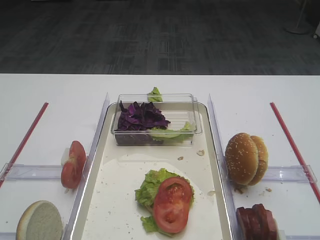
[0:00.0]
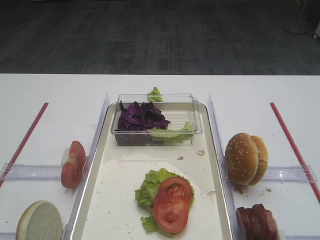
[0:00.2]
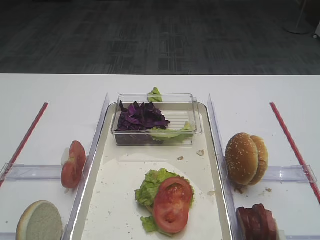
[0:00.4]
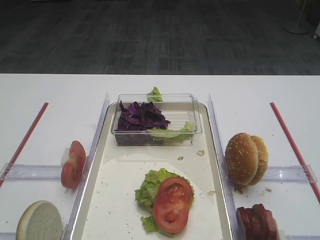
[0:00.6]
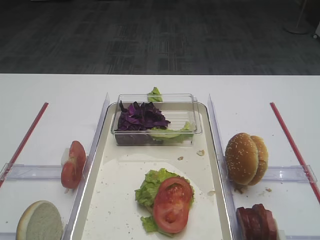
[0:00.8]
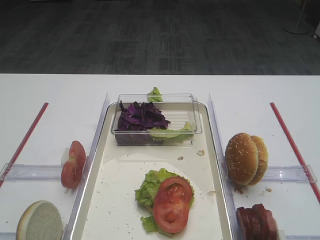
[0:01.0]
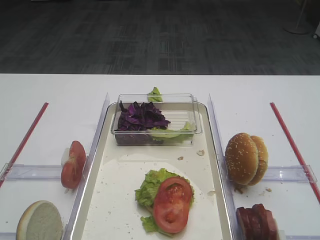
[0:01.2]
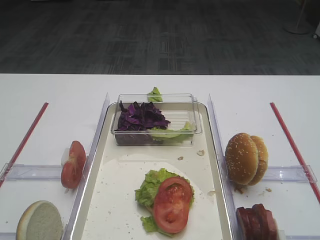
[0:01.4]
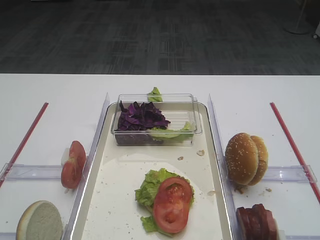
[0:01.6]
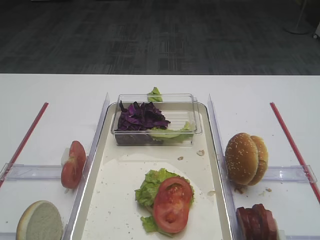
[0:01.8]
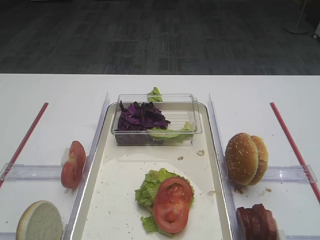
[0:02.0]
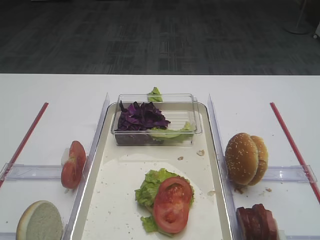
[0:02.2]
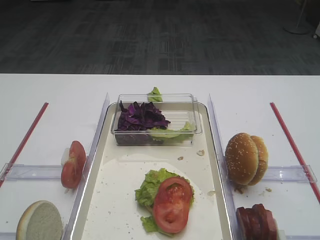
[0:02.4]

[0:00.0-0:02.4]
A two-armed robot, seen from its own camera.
0:00.0 to 0:02.4: Both grippers stay put.

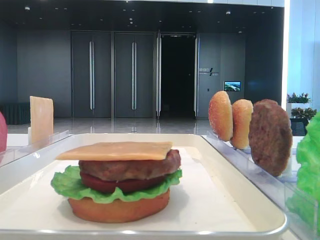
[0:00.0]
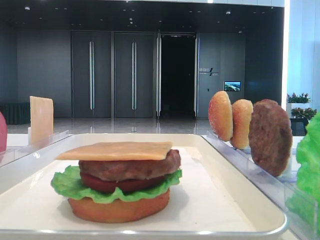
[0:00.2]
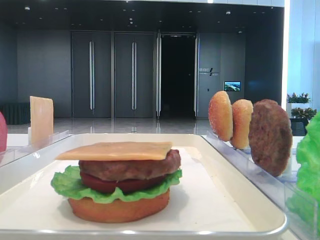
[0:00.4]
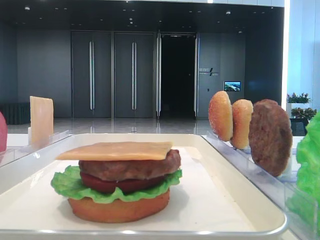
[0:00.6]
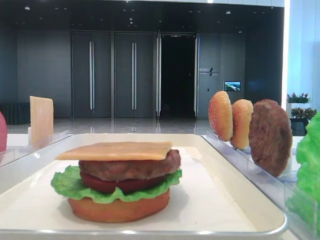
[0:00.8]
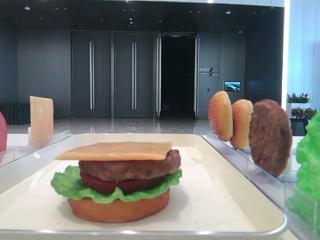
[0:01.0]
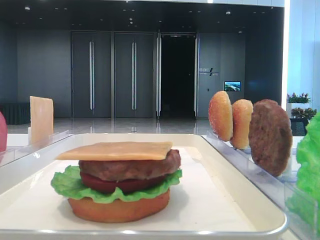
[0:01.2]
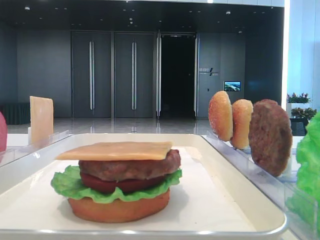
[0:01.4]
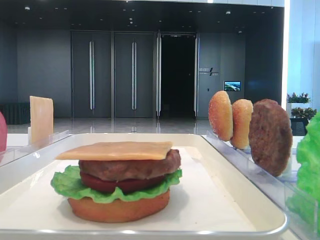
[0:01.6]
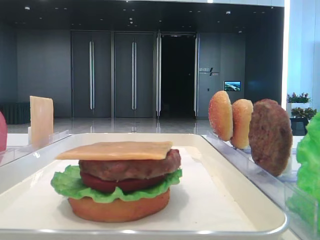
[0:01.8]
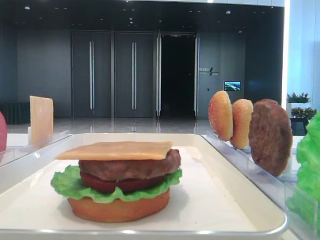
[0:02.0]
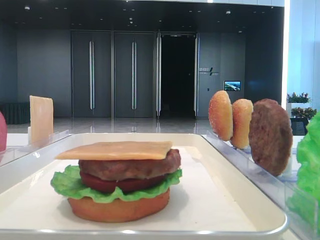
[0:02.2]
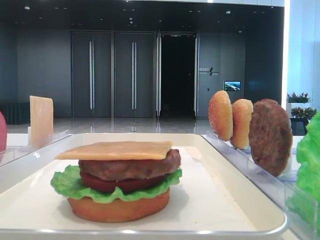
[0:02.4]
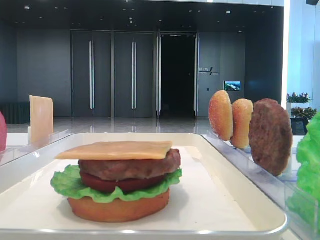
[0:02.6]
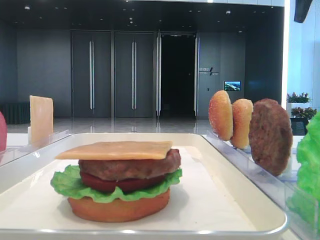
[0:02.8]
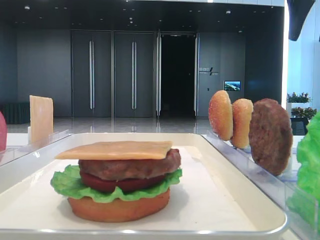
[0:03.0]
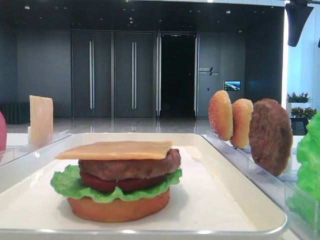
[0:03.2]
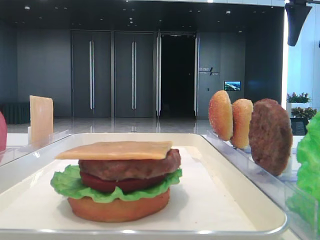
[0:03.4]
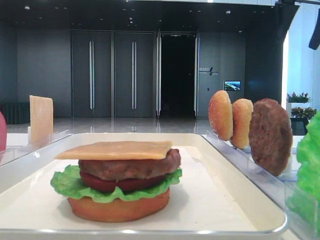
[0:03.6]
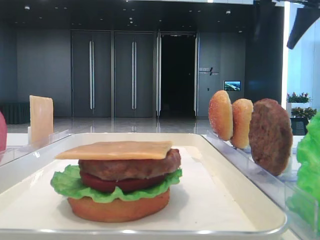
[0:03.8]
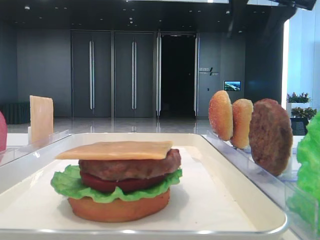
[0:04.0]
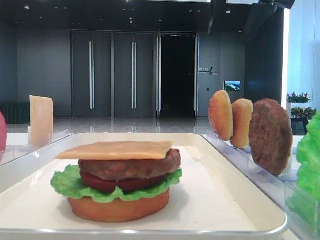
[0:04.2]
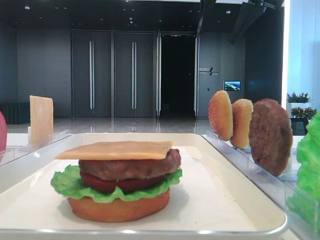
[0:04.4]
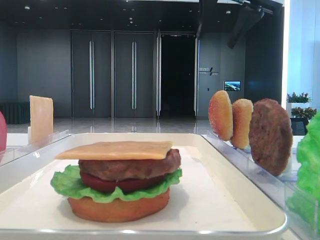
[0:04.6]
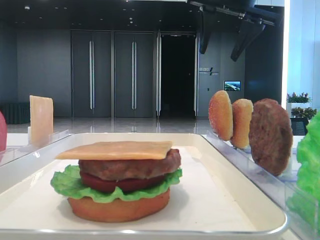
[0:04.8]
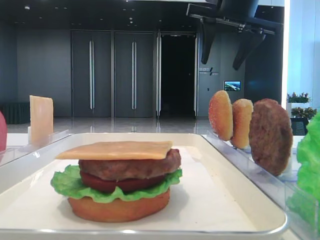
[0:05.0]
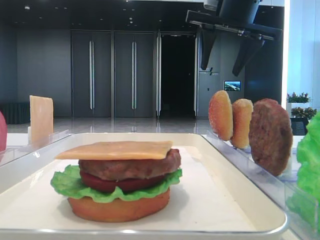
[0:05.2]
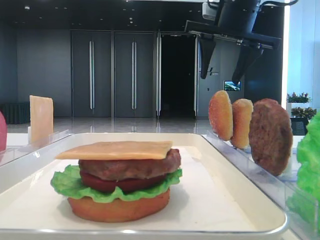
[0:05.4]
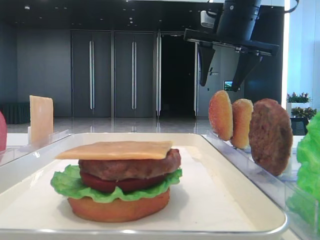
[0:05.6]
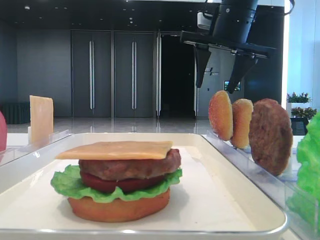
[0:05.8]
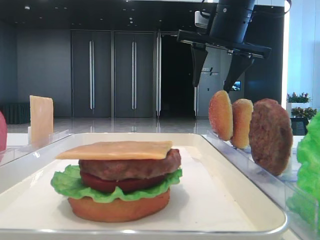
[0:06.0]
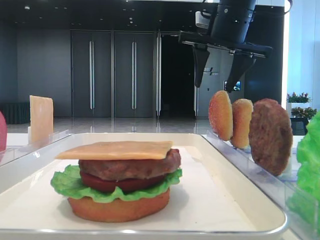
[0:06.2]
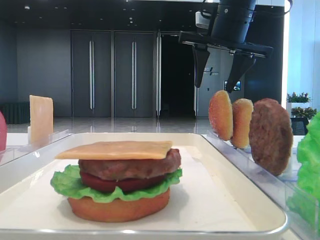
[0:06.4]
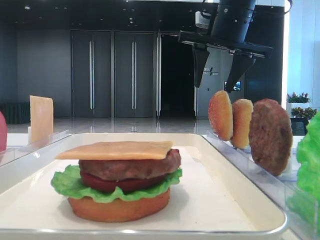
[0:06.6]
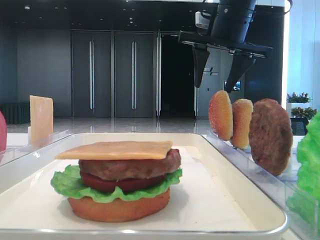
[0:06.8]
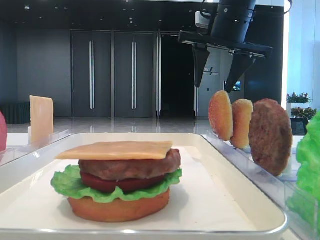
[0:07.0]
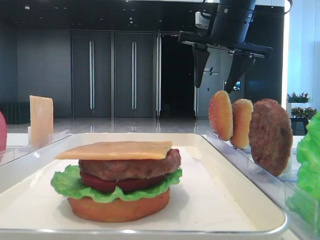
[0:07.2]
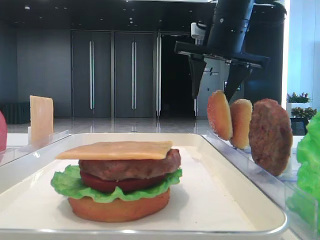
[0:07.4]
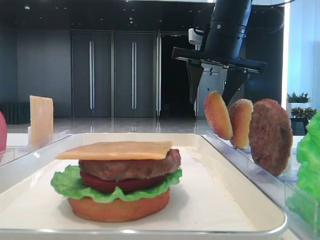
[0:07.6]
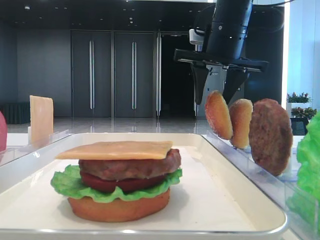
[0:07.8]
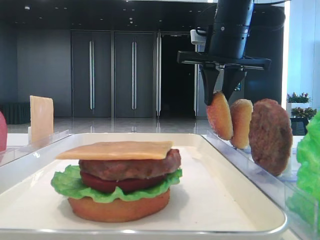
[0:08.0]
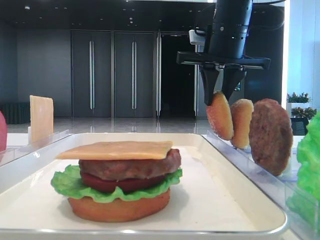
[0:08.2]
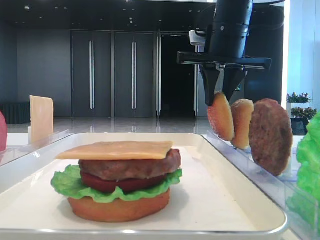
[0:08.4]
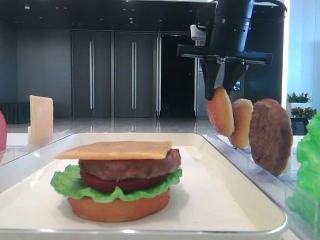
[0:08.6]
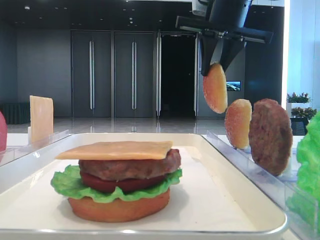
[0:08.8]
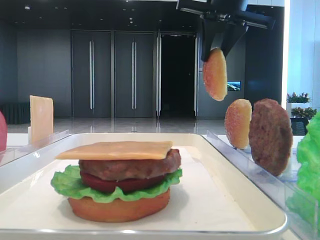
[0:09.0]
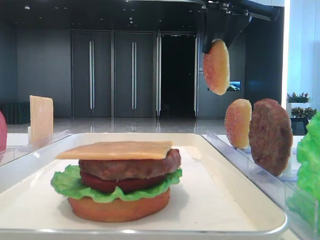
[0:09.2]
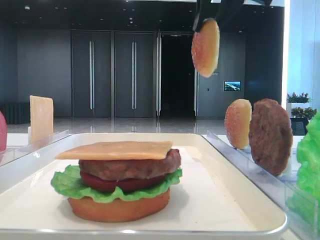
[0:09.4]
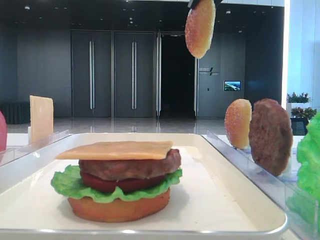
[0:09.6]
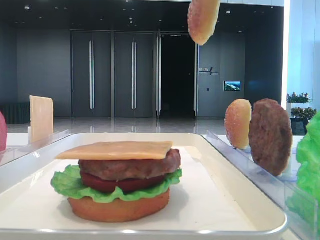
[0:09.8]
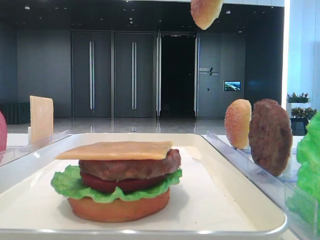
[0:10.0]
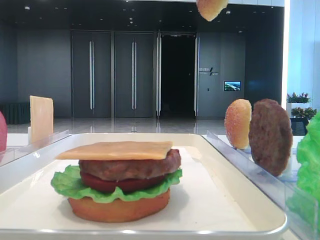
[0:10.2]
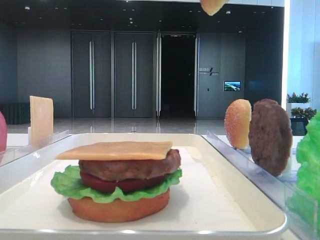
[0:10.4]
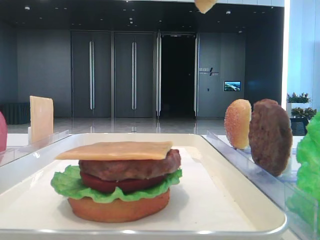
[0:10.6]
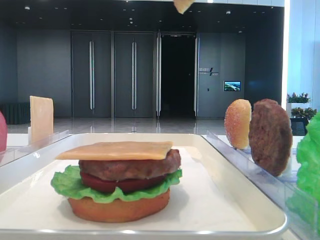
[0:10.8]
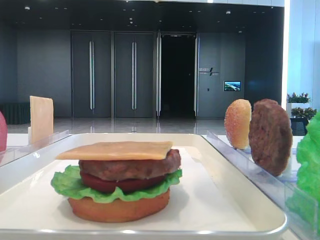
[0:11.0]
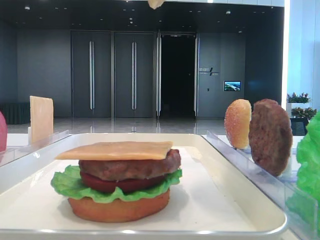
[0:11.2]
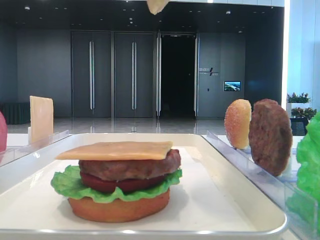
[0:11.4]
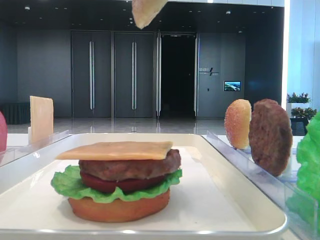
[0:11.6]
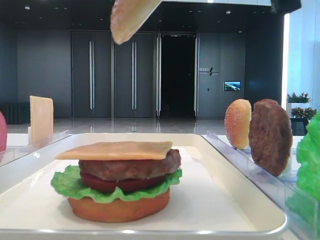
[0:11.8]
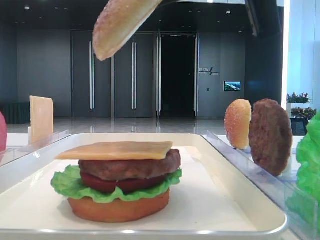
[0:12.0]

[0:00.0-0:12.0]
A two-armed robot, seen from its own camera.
Step, 0:00.0 to 0:08.2: Pick up the top bread slice with the right hand.
0:01.6 to 0:03.0: The right gripper moves forward, some 30 cm.
0:03.0 to 0:04.4: The right gripper heads to the left, covering approximately 15 cm.
0:04.4 to 0:06.0: The right gripper shifts some 10 cm downward.
0:06.0 to 0:07.6: The grippers move only a little.
0:07.6 to 0:09.0: The right gripper moves upward, roughly 5 cm, and closes its fingers.
0:09.0 to 0:10.4: The right gripper travels backward and upward by some 20 cm.
0:10.4 to 0:12.0: The right gripper is displaced downward by some 10 cm.

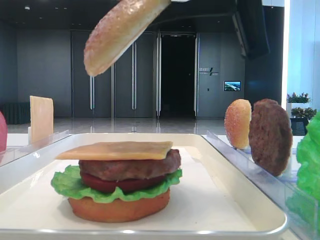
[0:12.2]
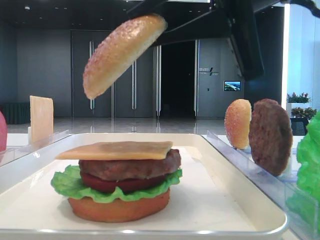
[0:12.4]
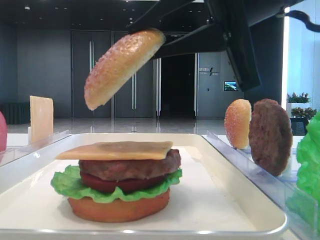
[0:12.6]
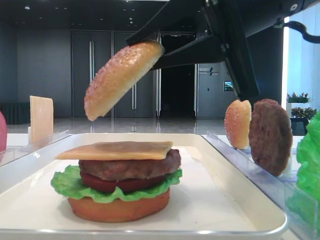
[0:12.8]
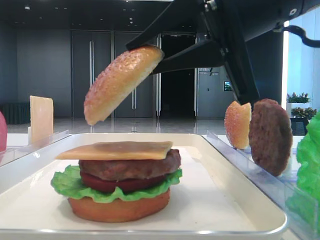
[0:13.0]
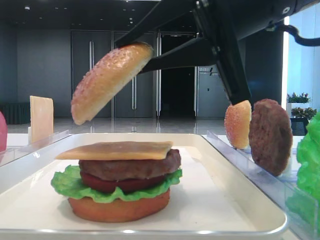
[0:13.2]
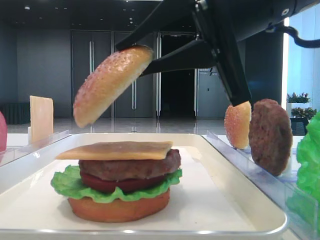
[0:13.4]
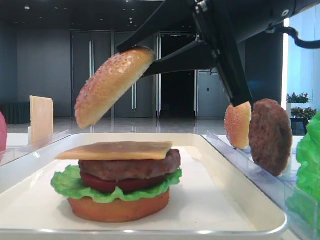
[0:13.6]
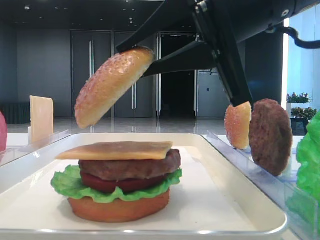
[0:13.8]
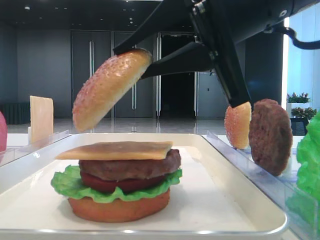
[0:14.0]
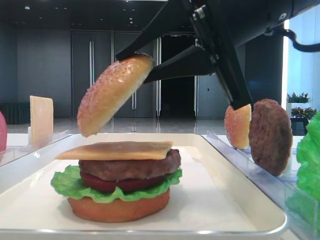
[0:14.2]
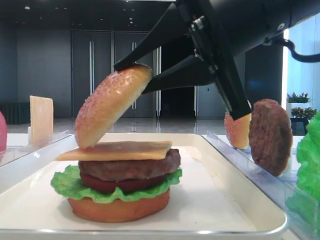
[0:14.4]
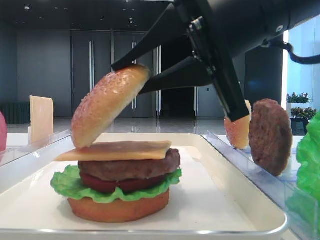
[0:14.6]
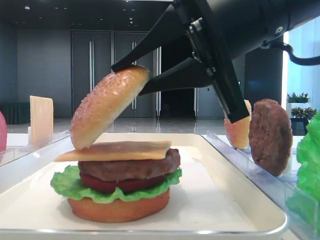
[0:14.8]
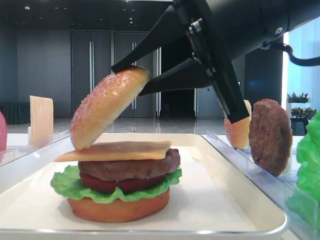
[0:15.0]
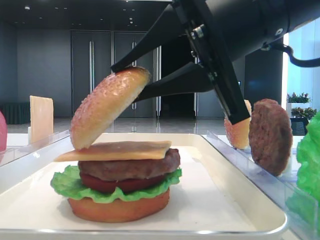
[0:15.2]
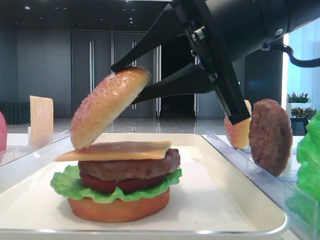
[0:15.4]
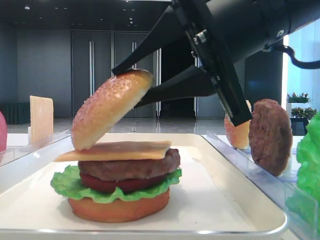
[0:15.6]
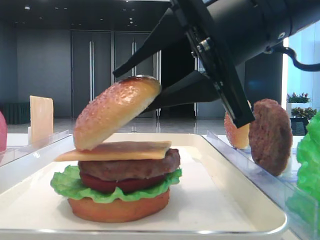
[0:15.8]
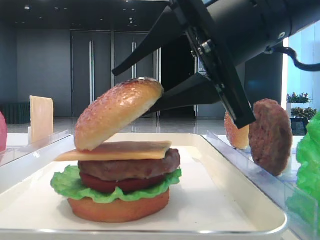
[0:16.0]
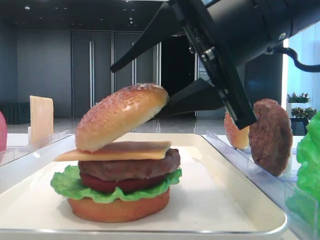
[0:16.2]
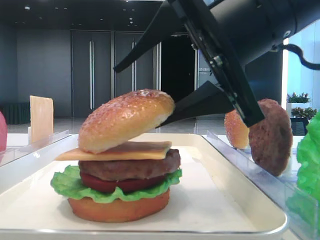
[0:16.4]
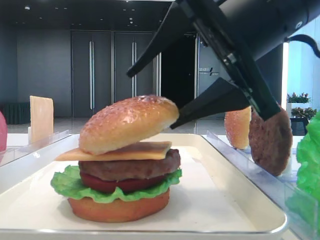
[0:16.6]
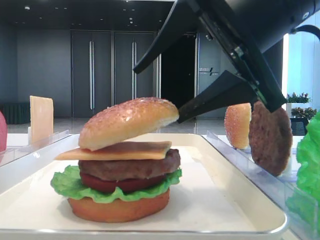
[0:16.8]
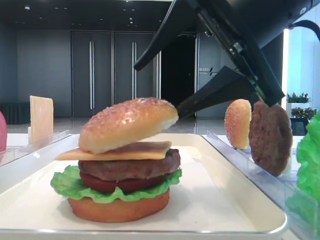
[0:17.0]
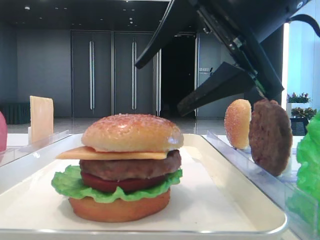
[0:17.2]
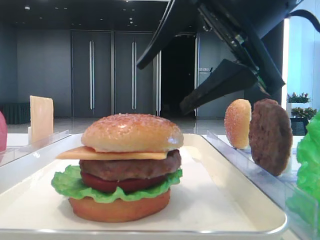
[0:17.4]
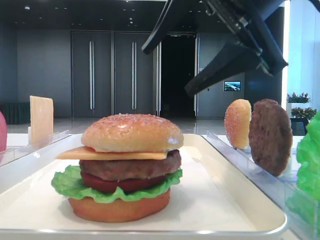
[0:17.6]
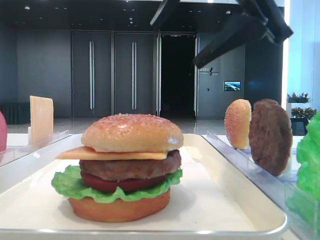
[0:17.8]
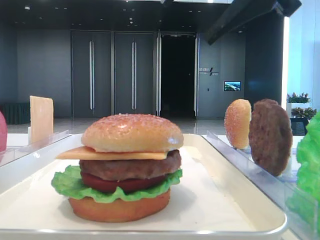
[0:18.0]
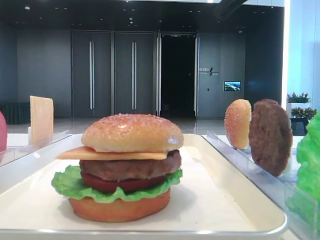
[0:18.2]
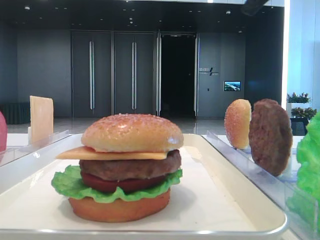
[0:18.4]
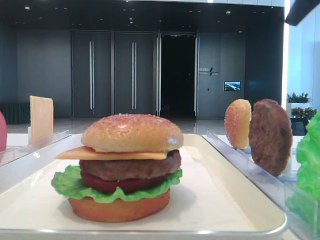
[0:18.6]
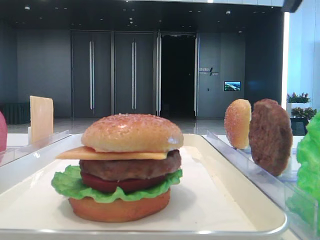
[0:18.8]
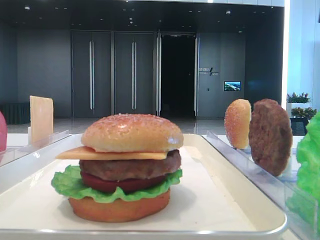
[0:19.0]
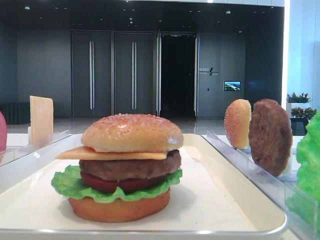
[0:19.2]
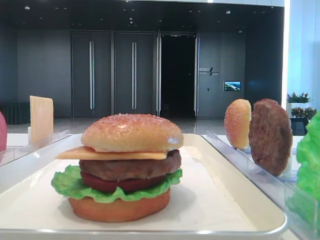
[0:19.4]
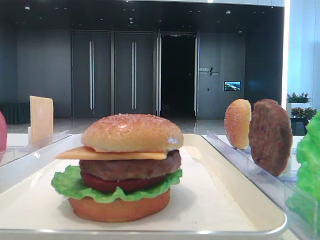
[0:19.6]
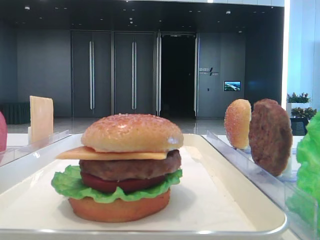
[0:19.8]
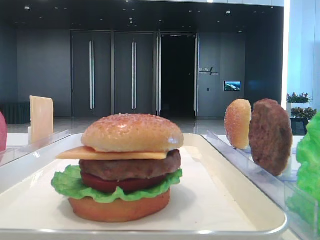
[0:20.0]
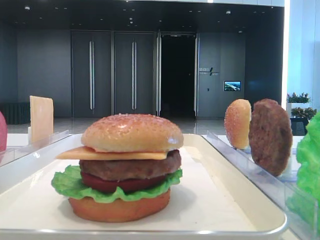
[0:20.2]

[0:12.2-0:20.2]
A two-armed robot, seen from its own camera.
Step, 0:12.2 to 0:17.0: Place the top bread slice on the cheese with the right hand.
0:12.2 to 0:13.8: The grippers make only small movements.
0:13.8 to 0:15.4: The grippers stay close to where they were, moving slightly.
0:15.4 to 0:17.0: The right gripper opens.
0:17.0 to 0:18.6: The right gripper goes some 15 cm upward and to the right.
0:18.6 to 0:20.2: The right gripper heads to the right, covering about 10 cm.
